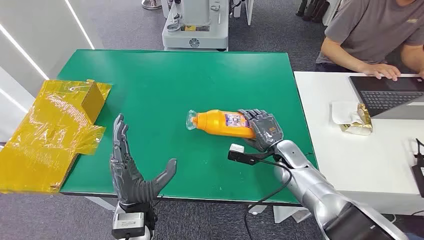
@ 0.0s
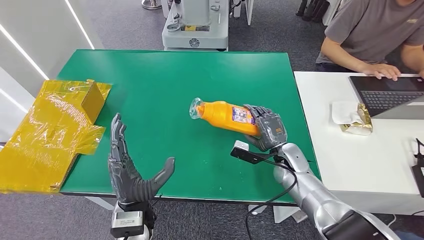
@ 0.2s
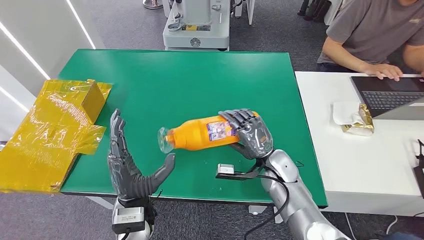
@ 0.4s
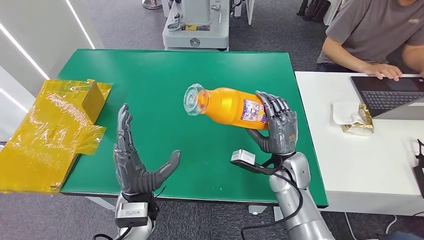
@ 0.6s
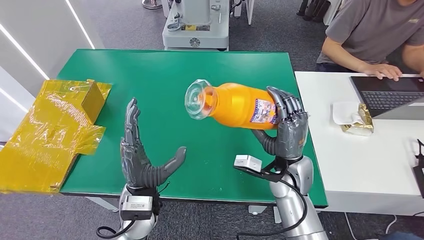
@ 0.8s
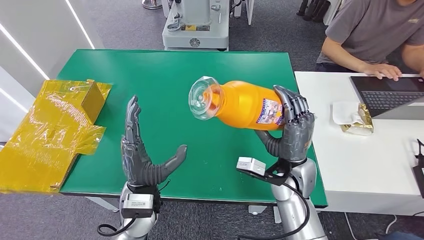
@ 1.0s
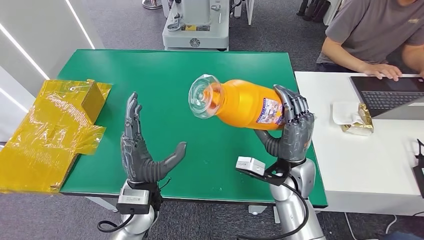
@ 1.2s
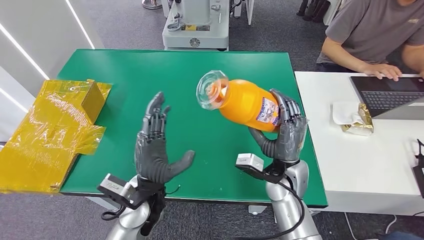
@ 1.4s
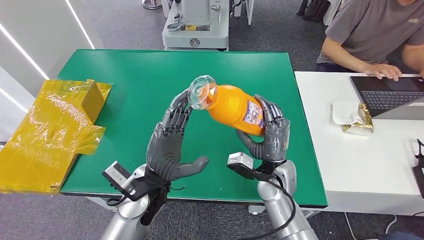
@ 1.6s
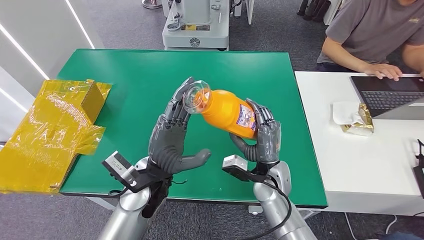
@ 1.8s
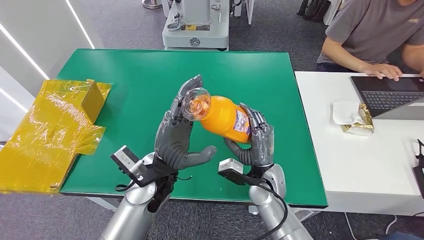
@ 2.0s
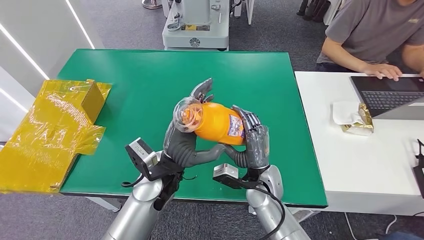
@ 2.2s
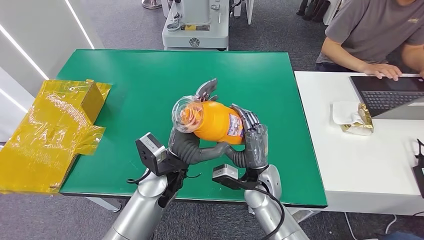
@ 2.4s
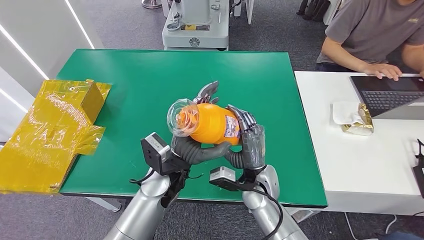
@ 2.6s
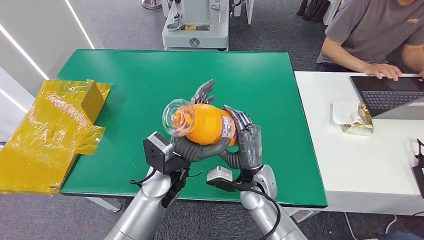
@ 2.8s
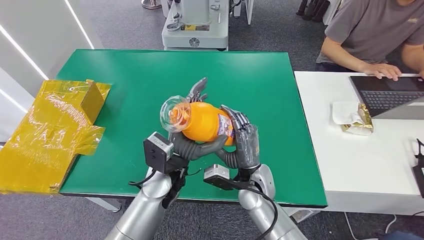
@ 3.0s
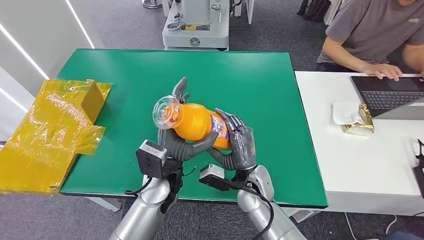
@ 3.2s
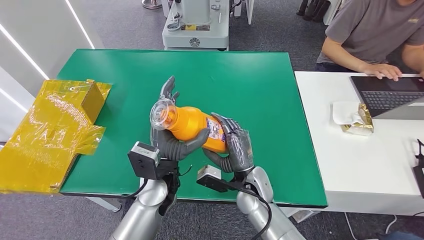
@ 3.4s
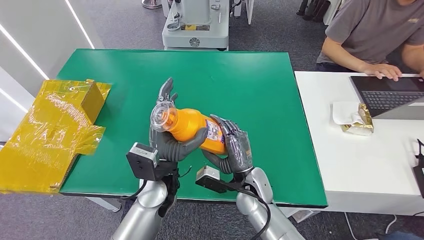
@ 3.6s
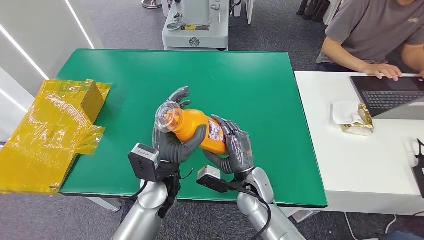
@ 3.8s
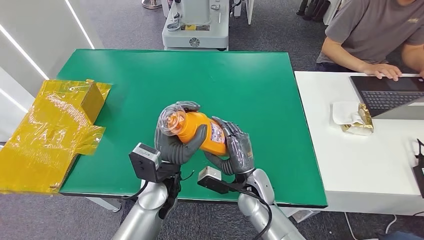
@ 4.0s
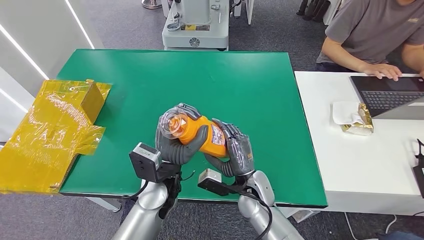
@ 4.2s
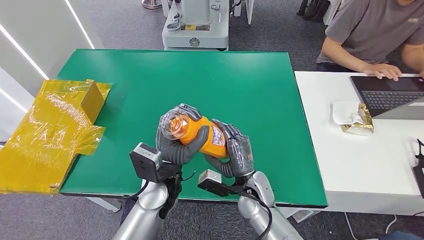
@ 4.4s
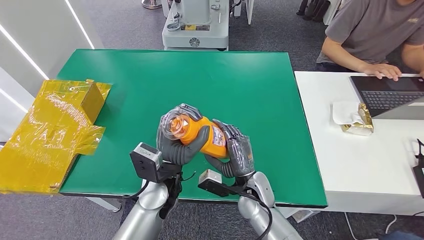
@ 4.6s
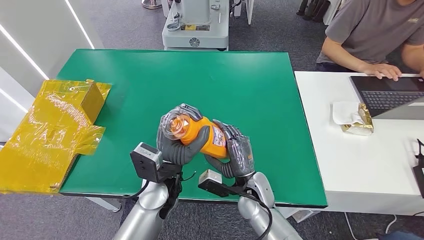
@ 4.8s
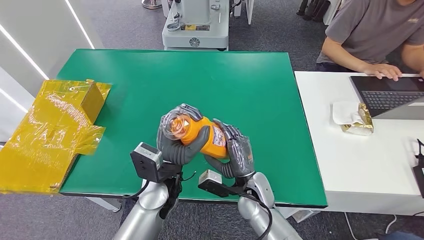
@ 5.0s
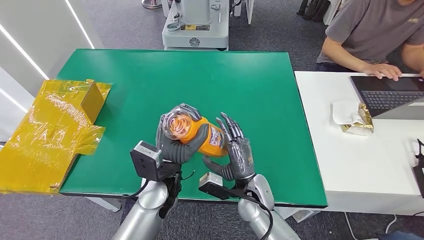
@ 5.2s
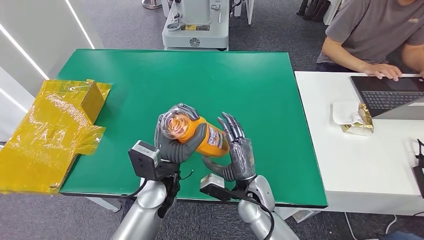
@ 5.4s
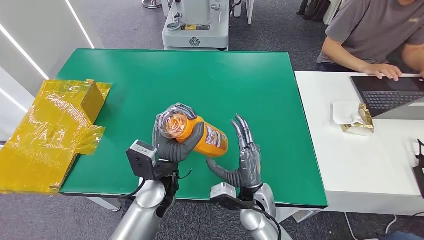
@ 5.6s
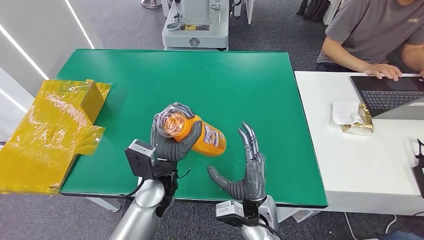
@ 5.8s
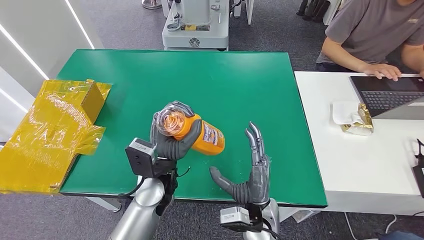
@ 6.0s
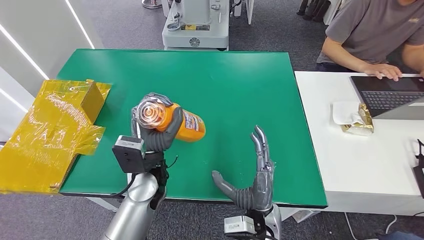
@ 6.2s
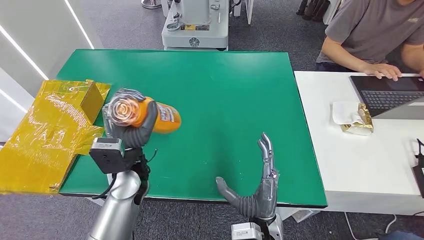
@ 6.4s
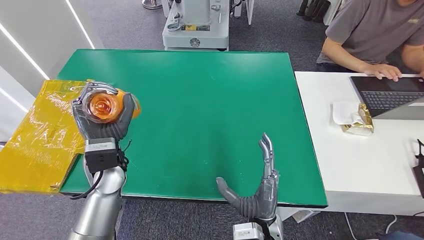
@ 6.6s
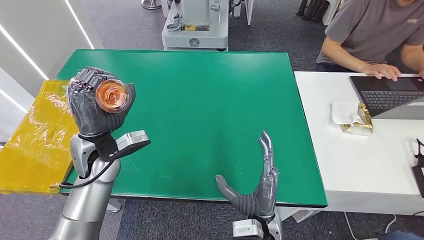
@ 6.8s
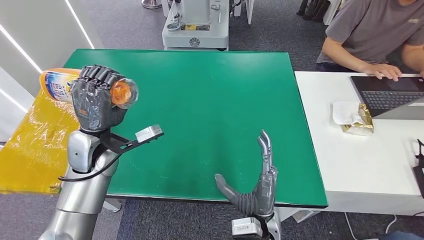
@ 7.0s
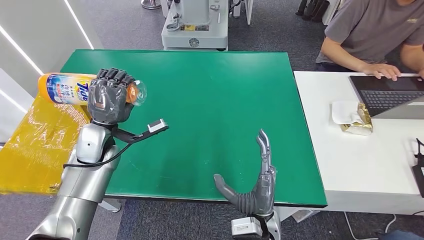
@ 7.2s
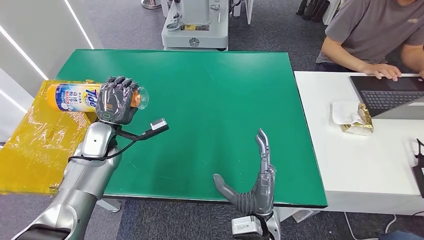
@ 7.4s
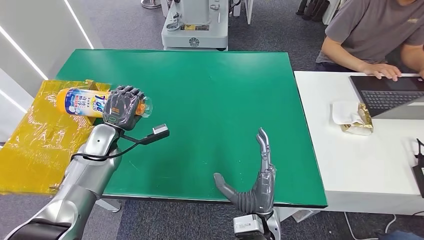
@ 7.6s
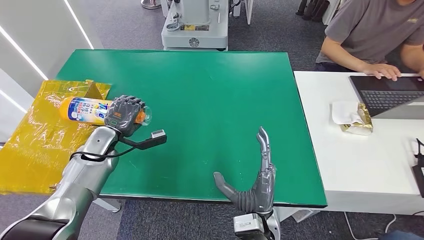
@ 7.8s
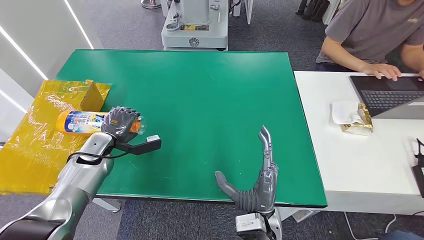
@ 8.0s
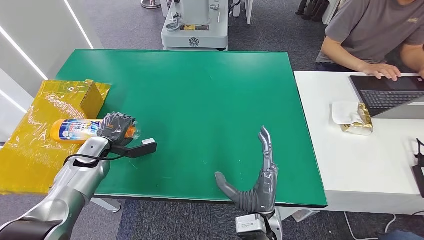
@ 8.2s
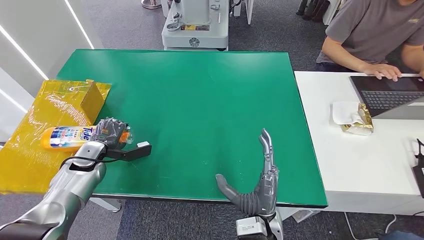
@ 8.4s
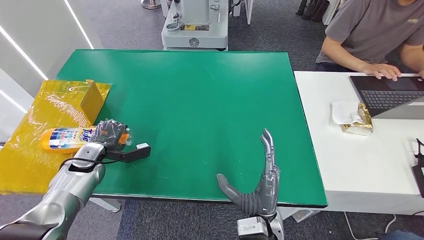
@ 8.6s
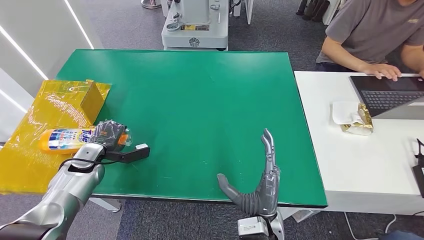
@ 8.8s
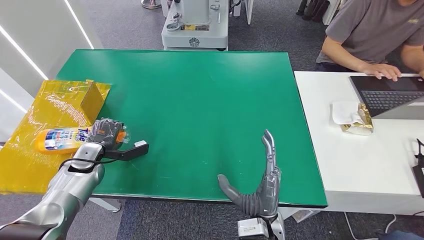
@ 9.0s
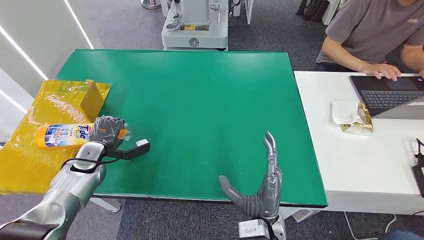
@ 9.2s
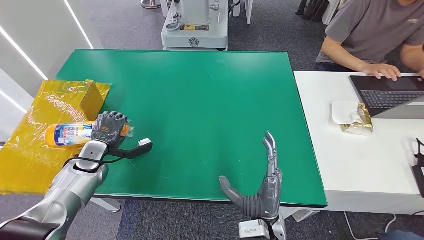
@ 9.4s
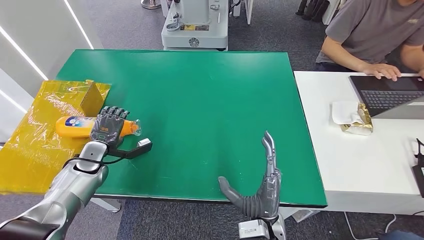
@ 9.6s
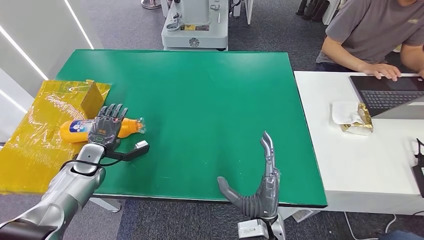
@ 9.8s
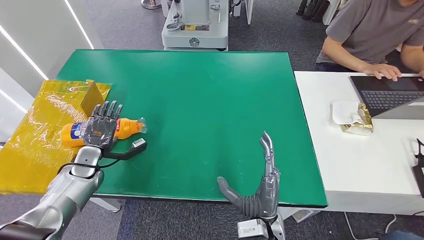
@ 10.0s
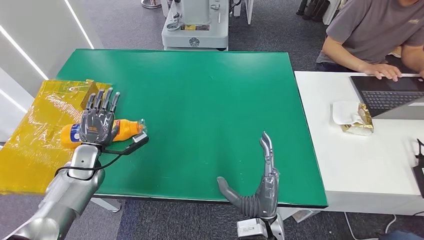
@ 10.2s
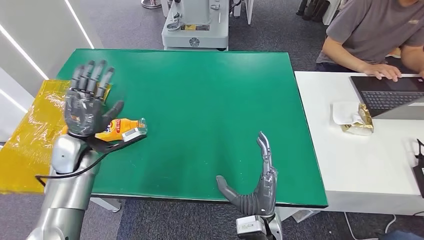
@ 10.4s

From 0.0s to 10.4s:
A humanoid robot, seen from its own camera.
Step, from 0.0s to 3.2s: Pick up the bottle from the table.
Step, from 4.0s to 10.4s: Turn the bottle to the front side.
From 1.4s to 3.0s: The right hand travels to the left by roughly 5 cm; the left hand ends up roughly 5 cm from where it was.
From 3.0s to 4.4s: There are only small adjustments of the hands.
From 4.4s to 6.0s: The right hand is displaced backward by roughly 5 cm.
From 6.0s to 7.4s: The left hand heads to the left and forward, covering roughly 20 cm.
From 7.4s to 9.0s: The left hand travels to the left and downward by some 10 cm.
From 9.0s to 10.4s: The left hand travels upward by roughly 10 cm.

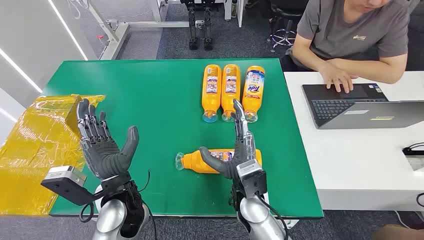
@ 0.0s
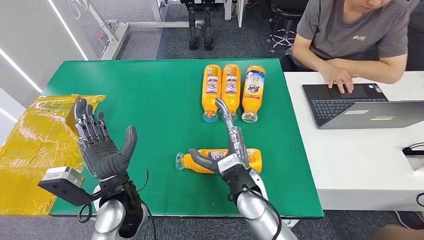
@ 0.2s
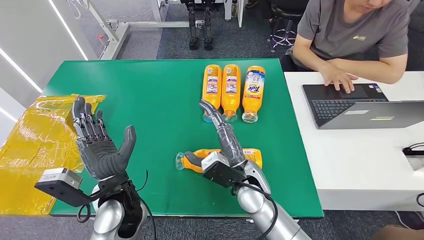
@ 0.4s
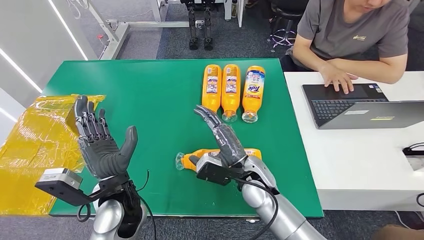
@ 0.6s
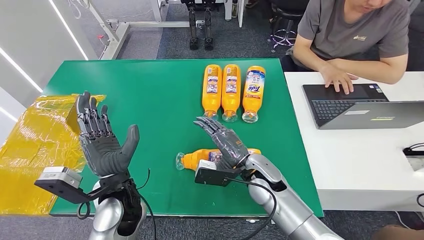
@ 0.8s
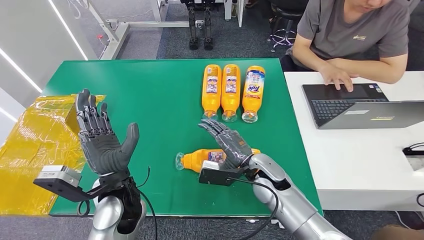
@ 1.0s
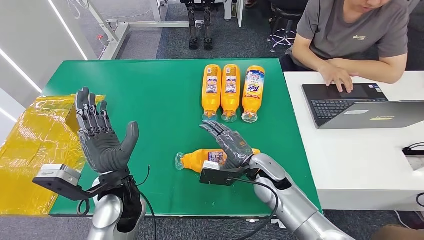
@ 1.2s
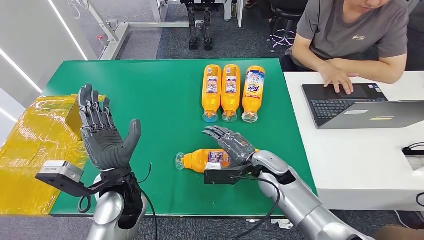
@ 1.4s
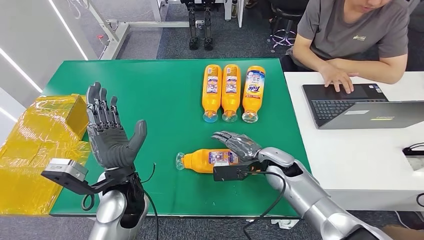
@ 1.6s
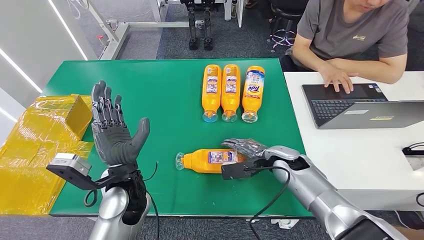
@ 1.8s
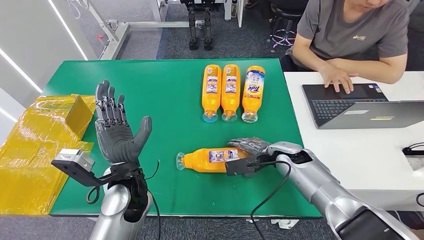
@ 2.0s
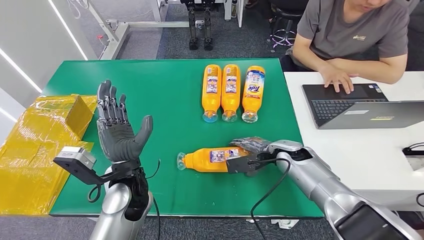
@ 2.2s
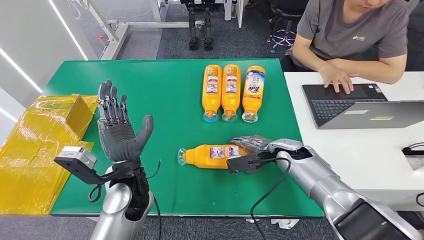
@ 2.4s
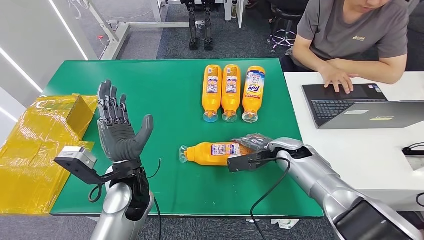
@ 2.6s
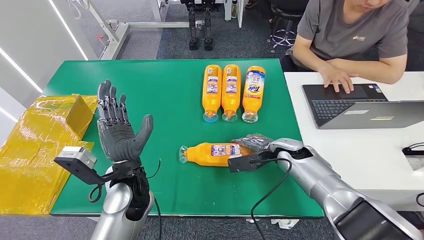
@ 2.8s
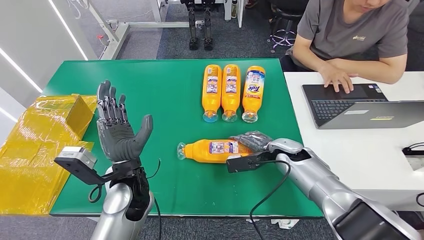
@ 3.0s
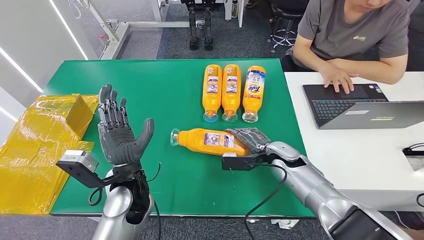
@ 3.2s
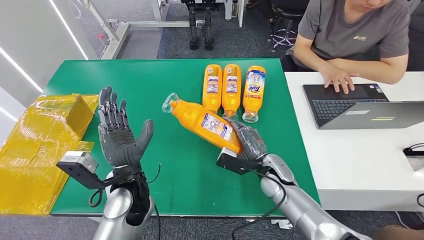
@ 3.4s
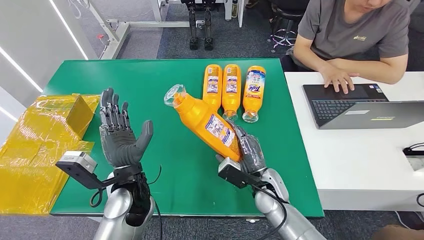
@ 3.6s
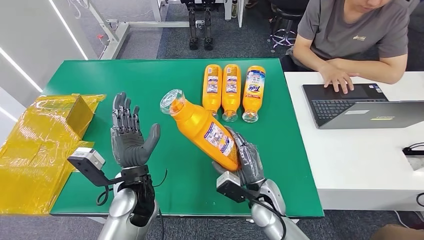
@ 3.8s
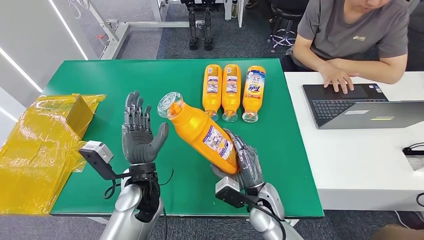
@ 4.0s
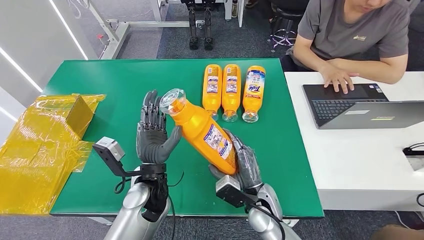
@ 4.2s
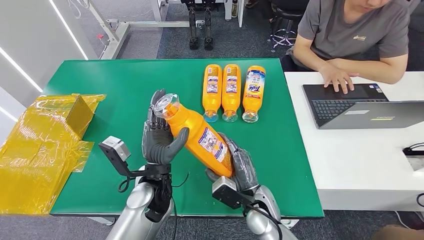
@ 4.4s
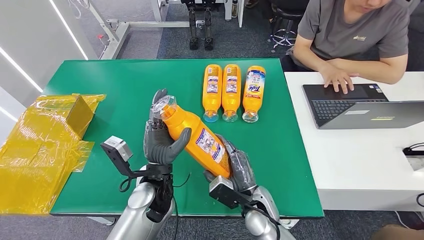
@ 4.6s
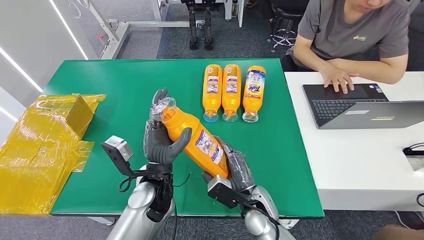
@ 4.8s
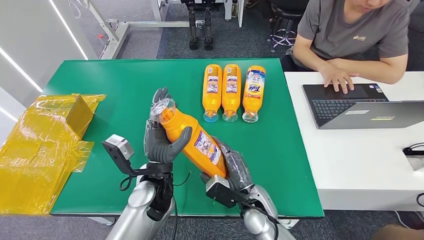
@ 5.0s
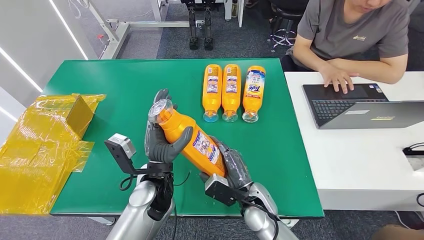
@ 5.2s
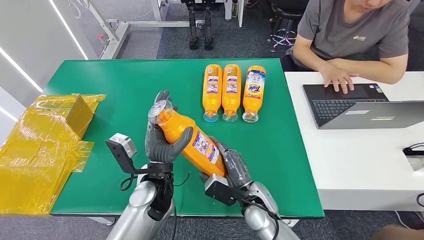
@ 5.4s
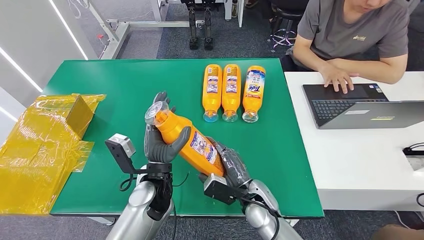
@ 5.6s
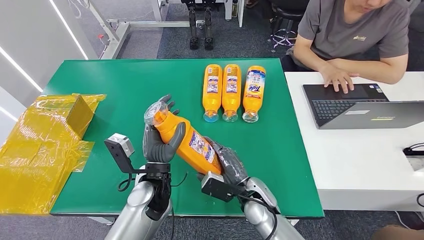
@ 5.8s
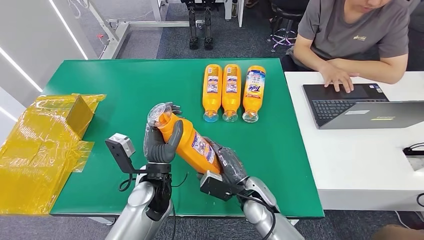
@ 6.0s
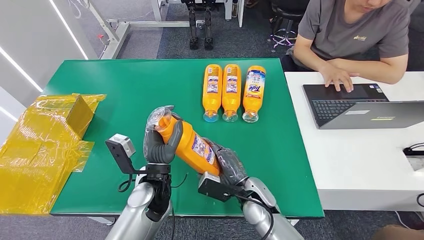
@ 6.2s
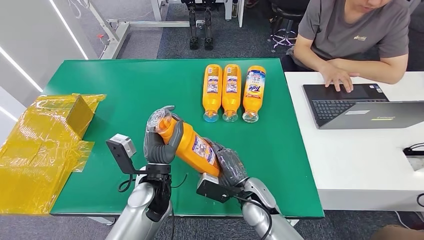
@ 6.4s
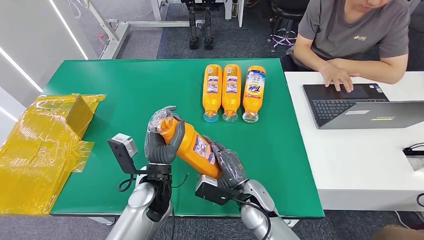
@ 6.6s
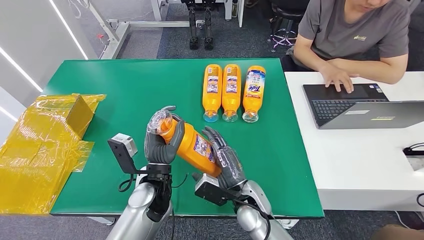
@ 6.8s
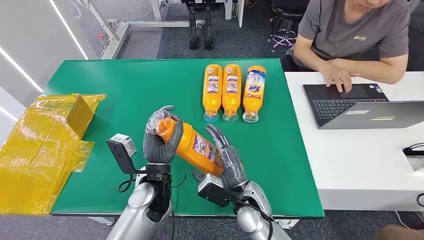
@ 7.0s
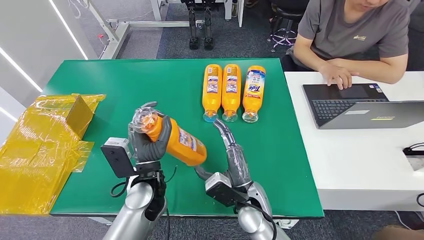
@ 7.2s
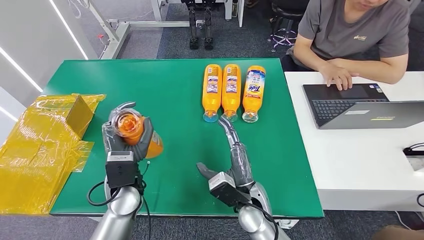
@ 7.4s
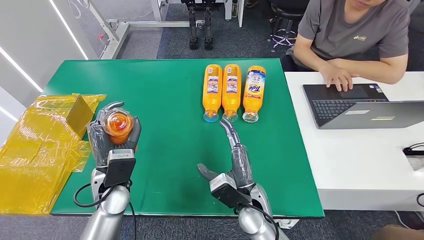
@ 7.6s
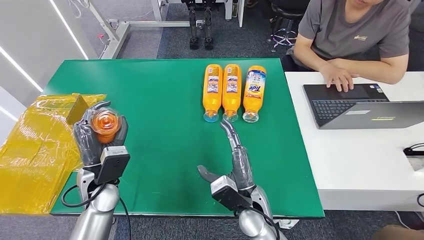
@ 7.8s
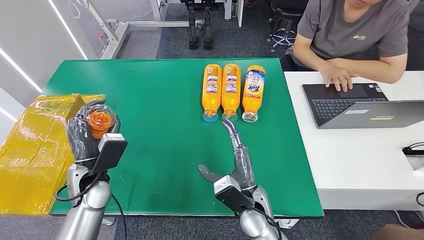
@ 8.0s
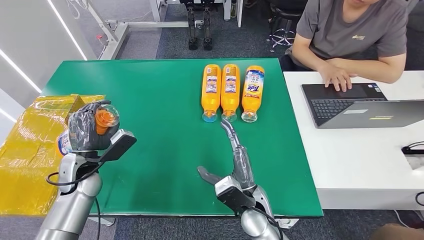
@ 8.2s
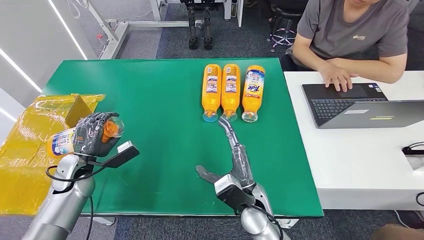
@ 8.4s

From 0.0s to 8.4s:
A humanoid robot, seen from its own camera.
Step, from 0.0s to 4.0s: Pick up the bottle from the table.
From 1.4s to 2.8s: The right hand goes about 10 cm to the right and forward.
From 4.2s to 5.6s: The hands make only small movements.
From 5.6s to 7.0s: The hands move only a little.
From 7.0s to 8.4s: The left hand shifts roughly 25 cm to the left.
